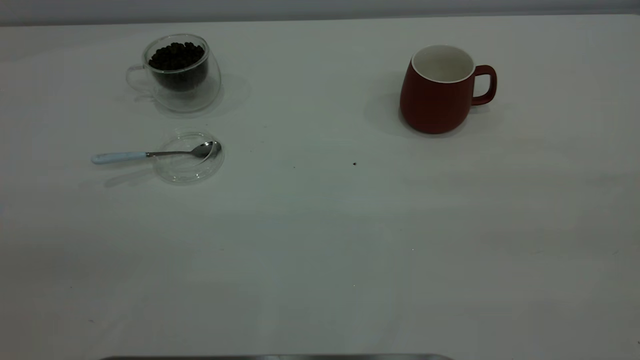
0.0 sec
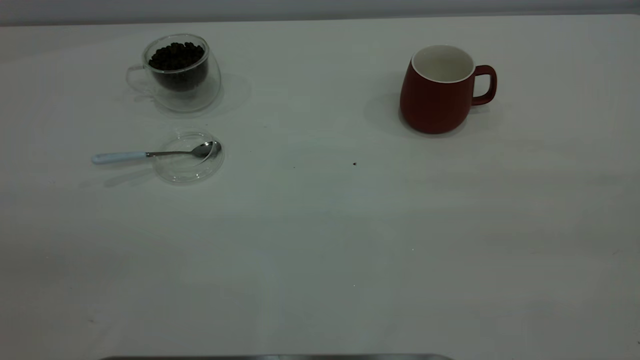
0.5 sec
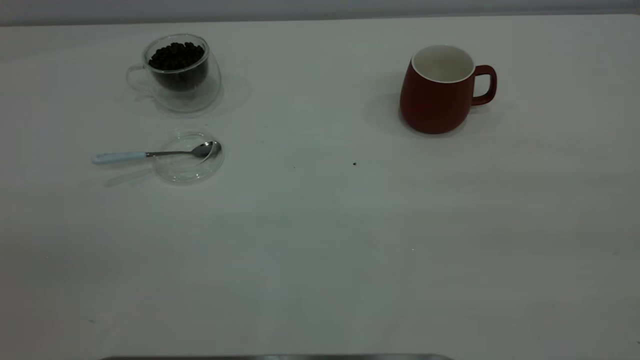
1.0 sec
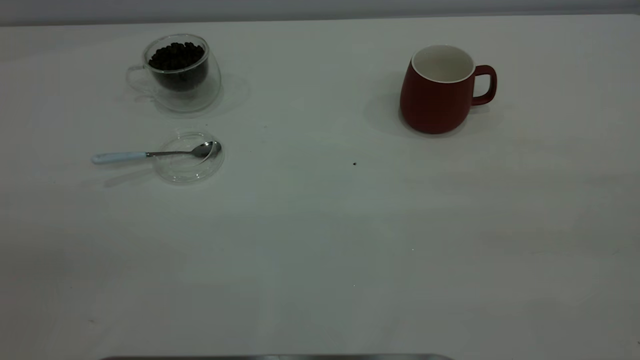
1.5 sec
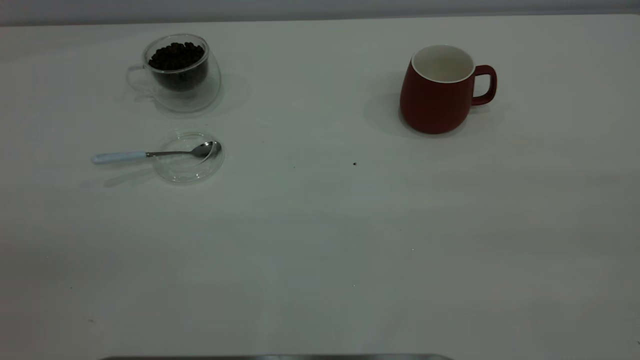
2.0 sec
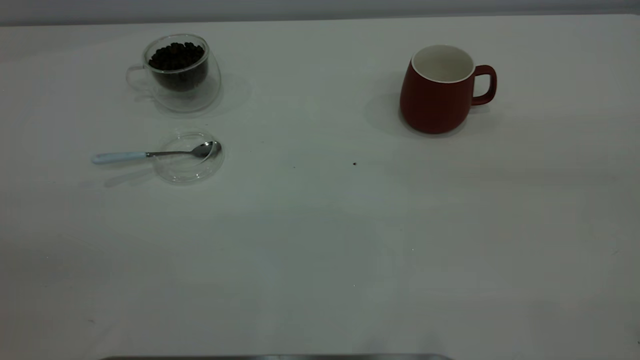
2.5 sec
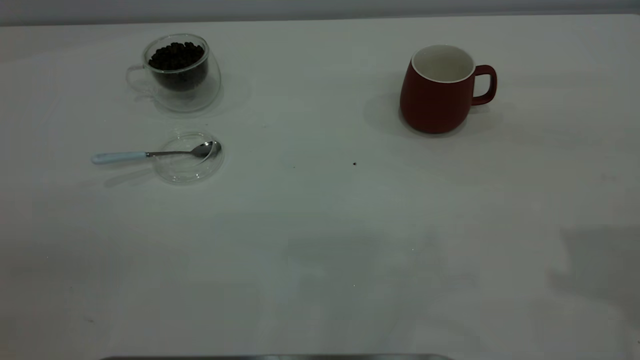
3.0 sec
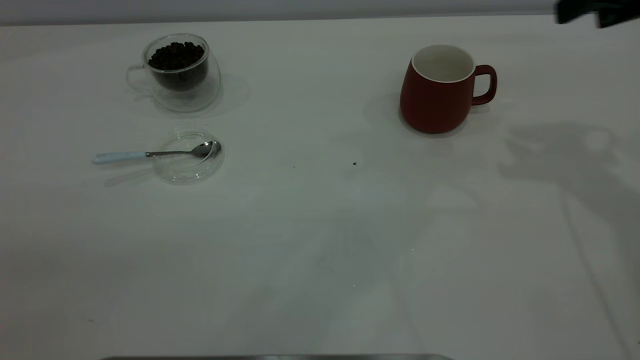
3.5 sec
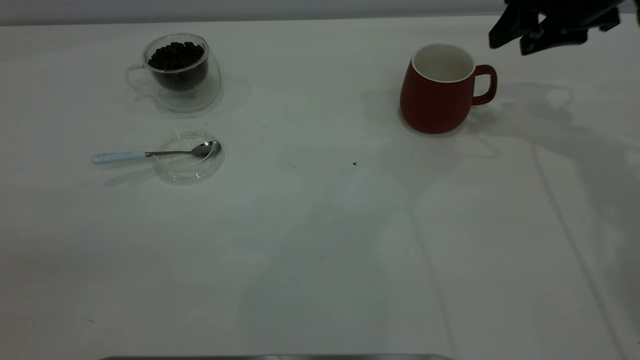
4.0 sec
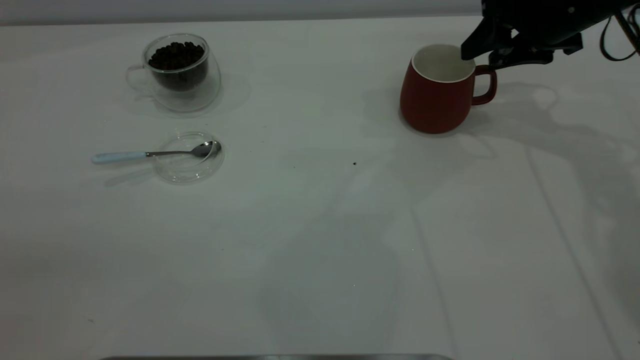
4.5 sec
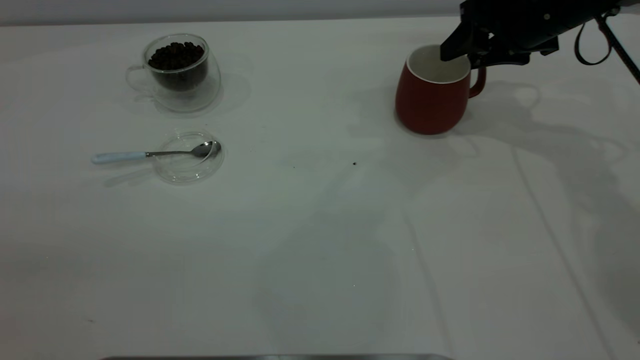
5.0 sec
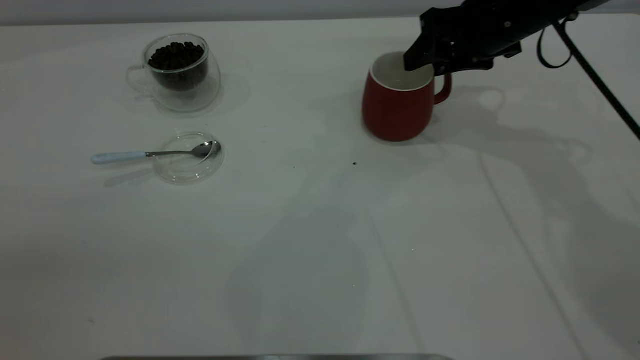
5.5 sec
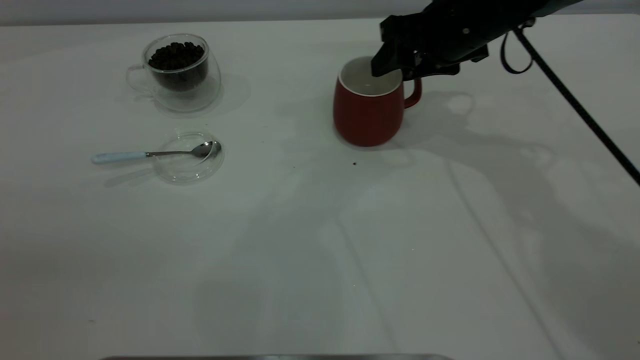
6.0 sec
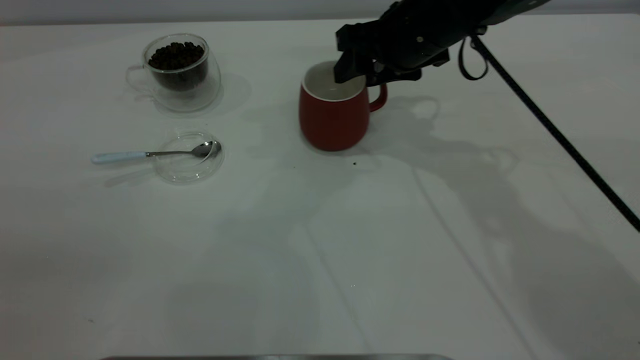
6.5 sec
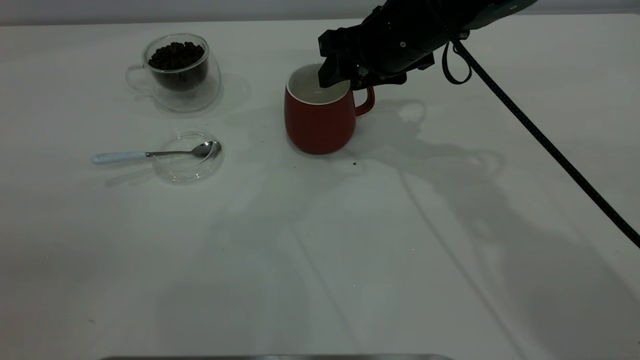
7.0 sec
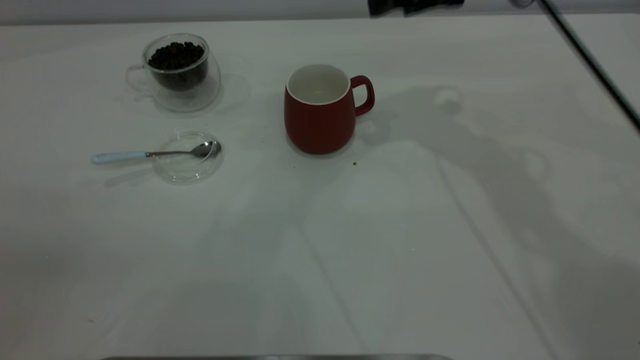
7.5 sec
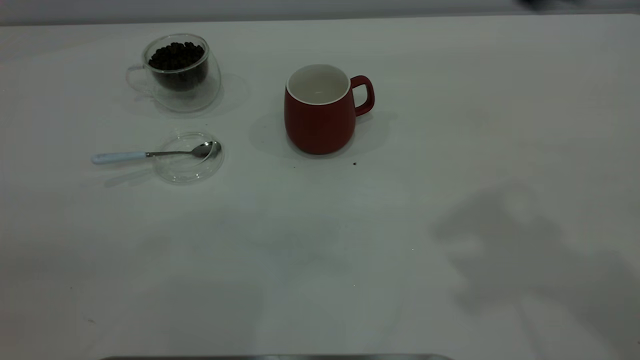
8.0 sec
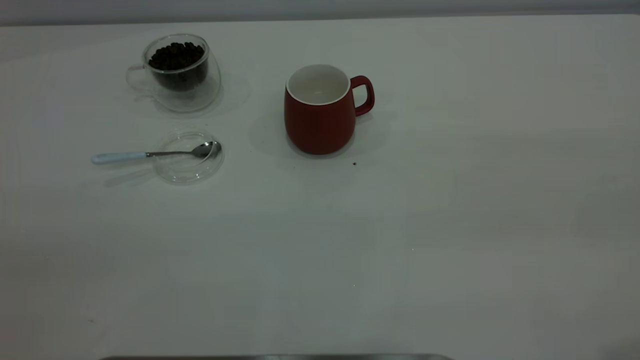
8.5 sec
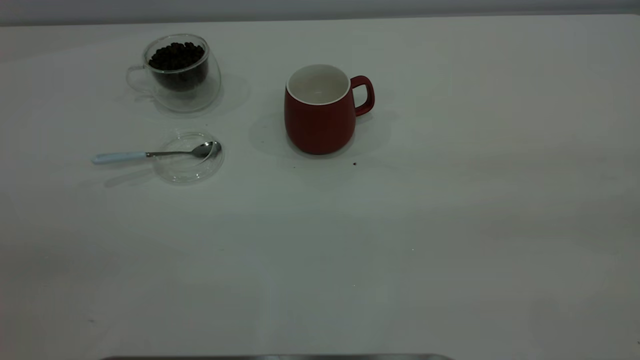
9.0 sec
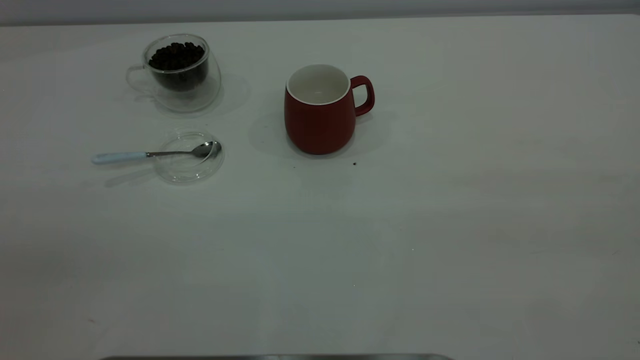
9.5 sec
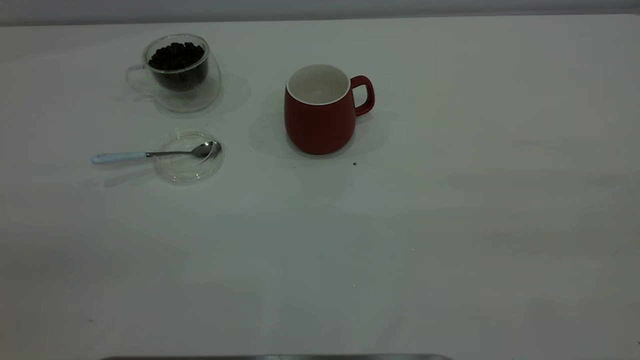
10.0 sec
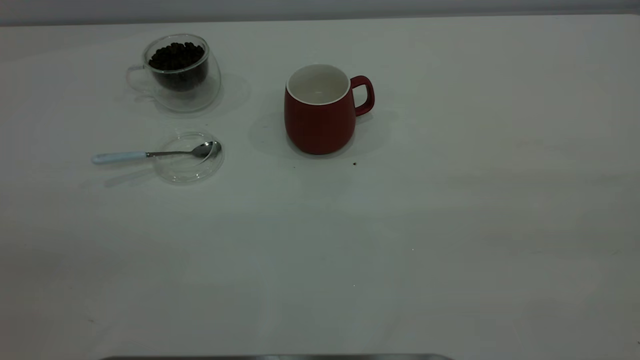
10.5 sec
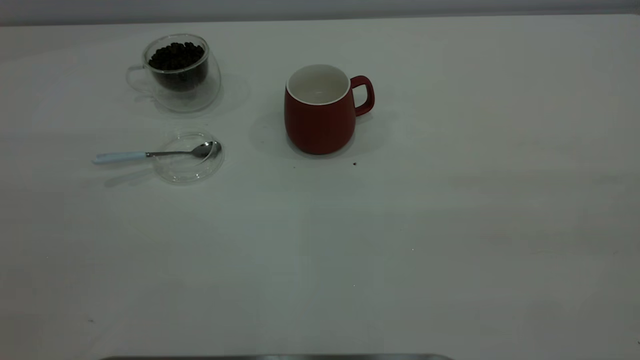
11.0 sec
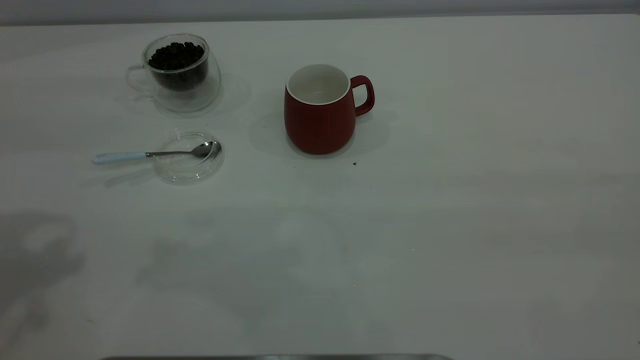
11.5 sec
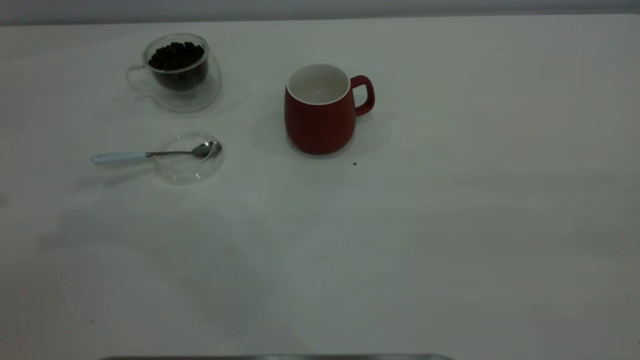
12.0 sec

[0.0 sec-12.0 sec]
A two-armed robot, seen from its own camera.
Task of the whole recording: the right gripper place the red cup in the center of the table, the left gripper take the blue spoon from the cup lid and scoop out the coffee beans from the coffee cup and put them into the red cup, the left gripper put the spoon back into the cup lid.
Step, 0.0 sec to 7.0 sec: Move the cup to the center of view.
0.0 sec to 2.0 sec: Both grippers stay about where they are.
2.0 sec to 4.0 sec: The right gripper moves forward and downward, approximately 50 cm, and opens its fingers.
4.0 sec to 6.0 sec: The right gripper shifts about 10 cm to the left.
6.0 sec to 8.0 sec: The right gripper shifts about 30 cm upward and backward.

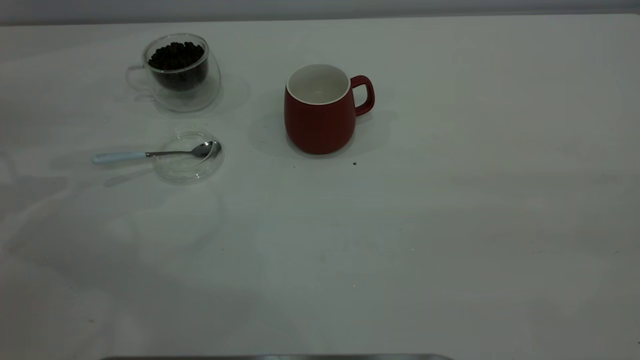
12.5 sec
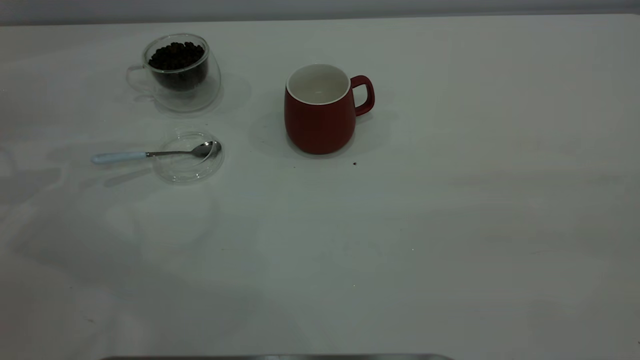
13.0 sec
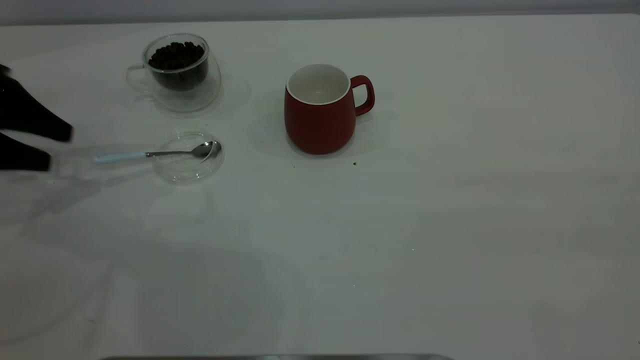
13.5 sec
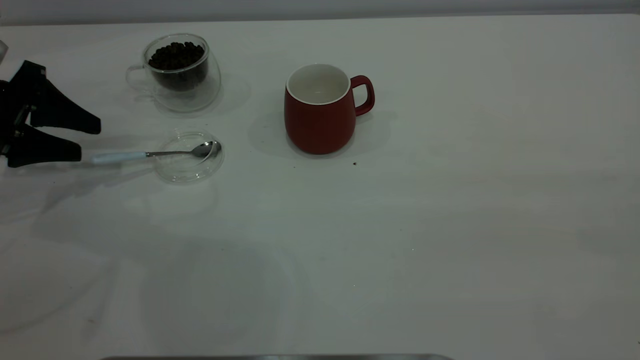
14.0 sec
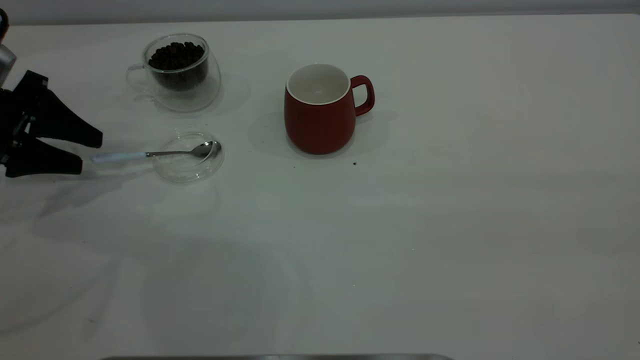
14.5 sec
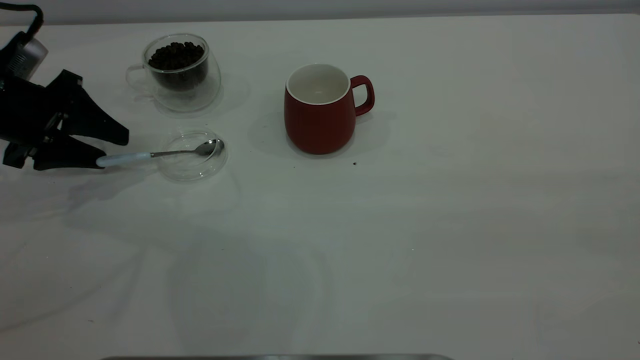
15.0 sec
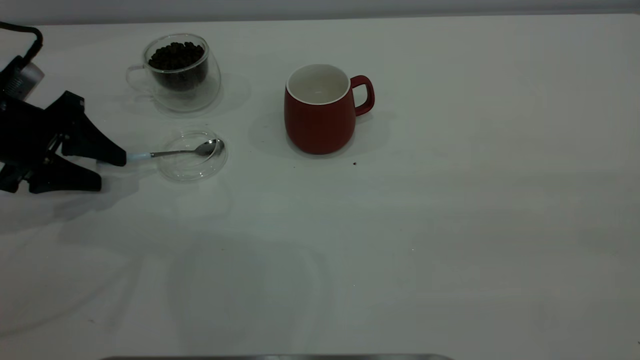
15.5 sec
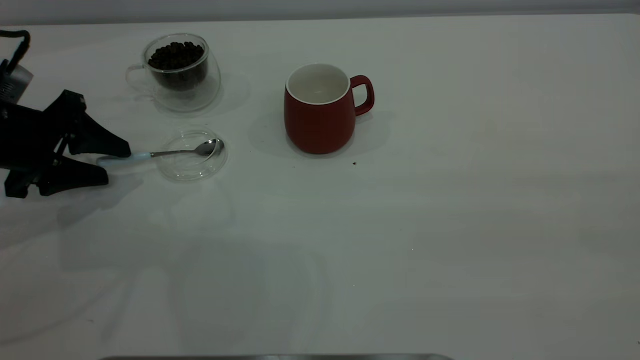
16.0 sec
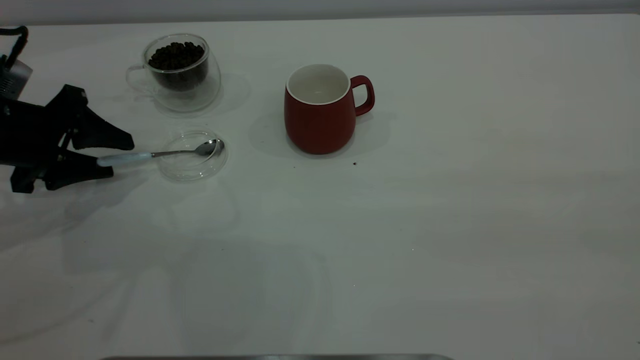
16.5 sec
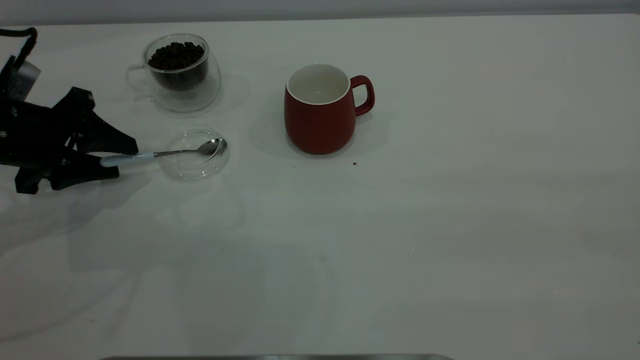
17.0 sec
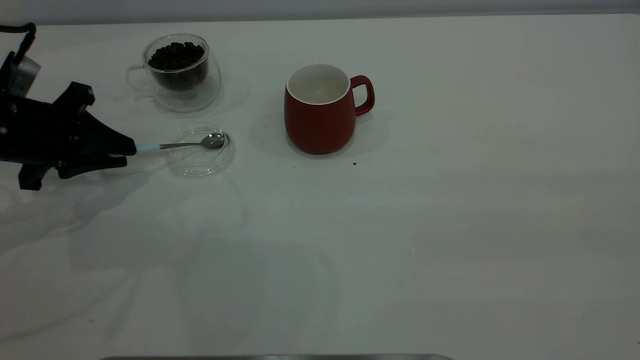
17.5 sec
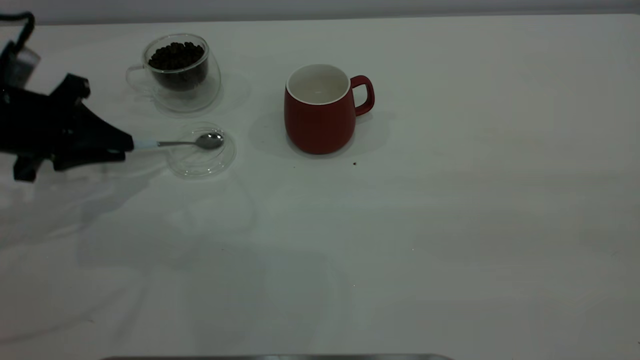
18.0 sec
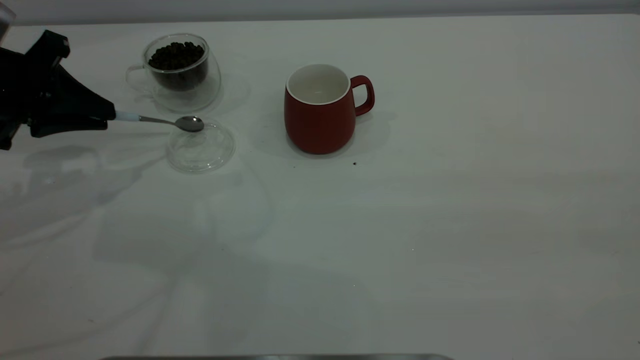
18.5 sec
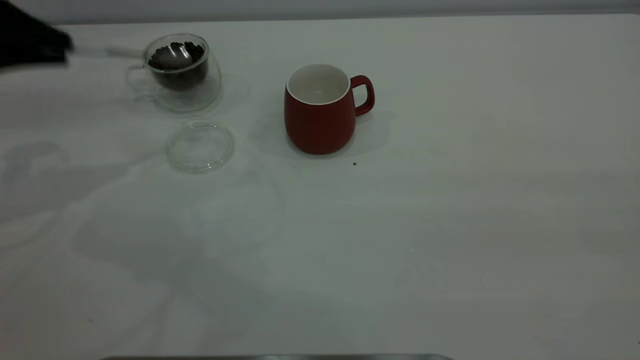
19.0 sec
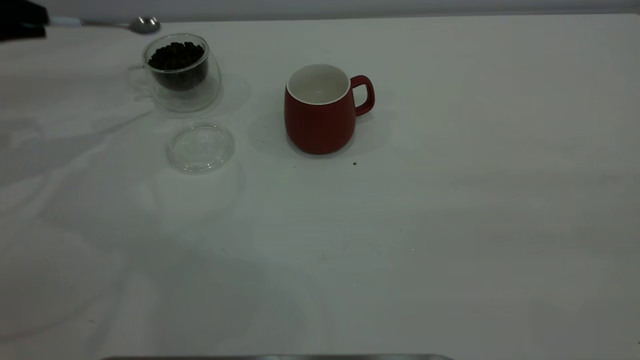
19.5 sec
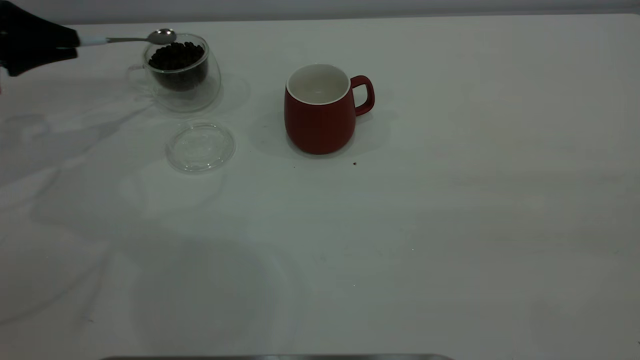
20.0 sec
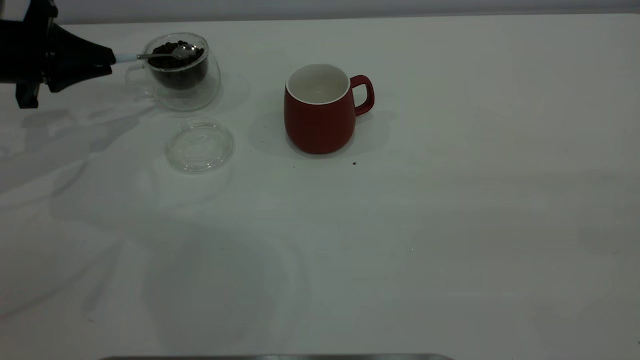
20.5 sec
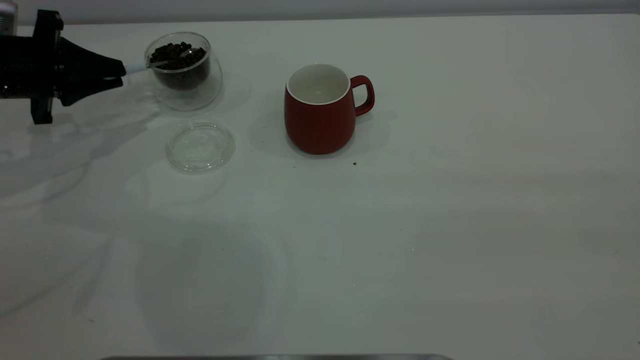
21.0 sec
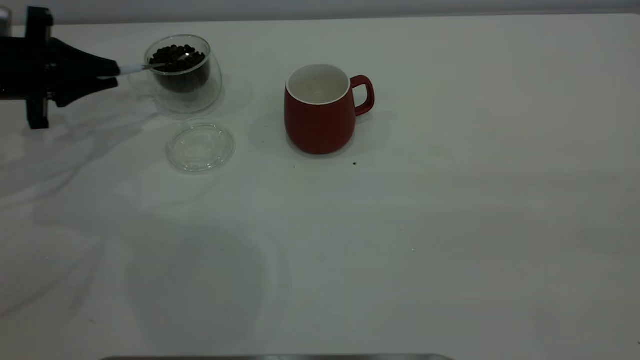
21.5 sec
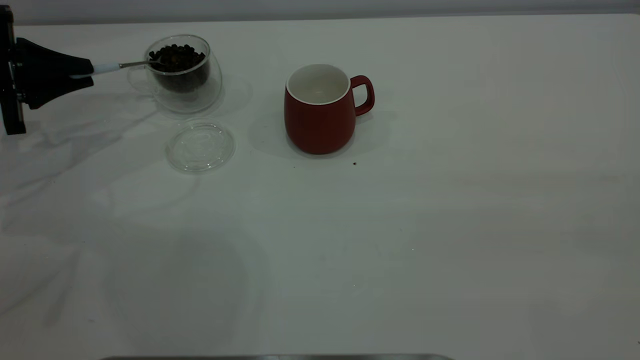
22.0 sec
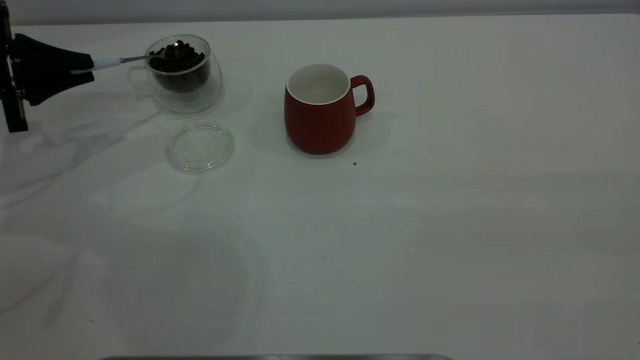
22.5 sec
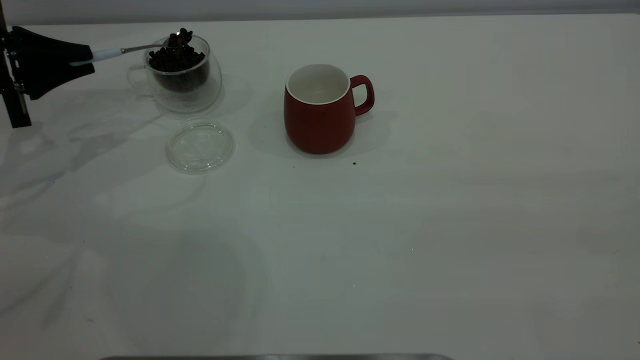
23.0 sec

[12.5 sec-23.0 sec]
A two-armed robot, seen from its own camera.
Task of the whole recording: the right gripper place the red cup in the center of the table, the left gripper take the blue spoon from the cup lid and scoop out the coffee beans from the coffee cup and put them into the red cup, the left gripper put the spoon back into the cup lid.
Step, 12.5 sec to 18.5 sec: Pick up the spoon.
12.5 sec to 14.5 sec: The left gripper goes about 10 cm downward and to the right.
14.5 sec to 16.5 sec: The left gripper changes place by about 5 cm.
16.5 sec to 19.0 sec: The left gripper shifts roughly 15 cm upward, and closes up.
19.0 sec to 21.0 sec: The left gripper goes roughly 10 cm downward and forward.
21.0 sec to 23.0 sec: The grippers stay close to where they were, moving slightly.
